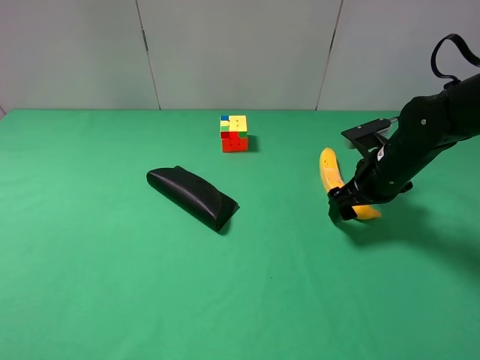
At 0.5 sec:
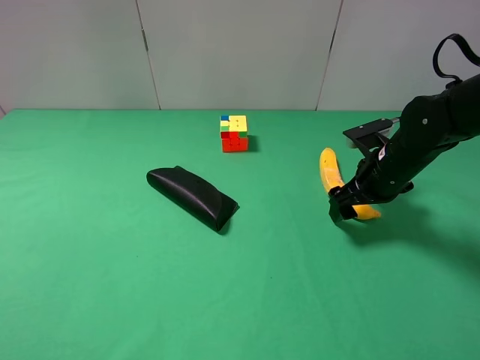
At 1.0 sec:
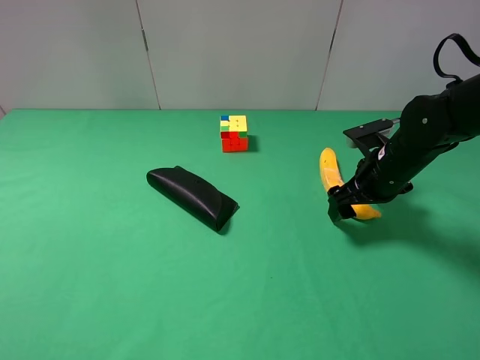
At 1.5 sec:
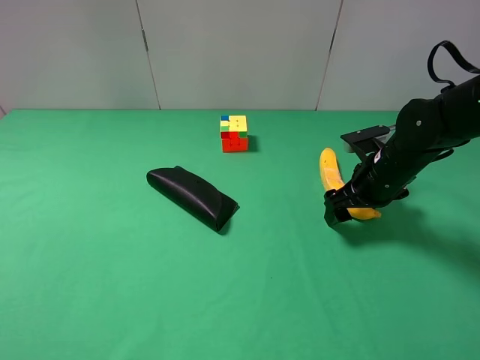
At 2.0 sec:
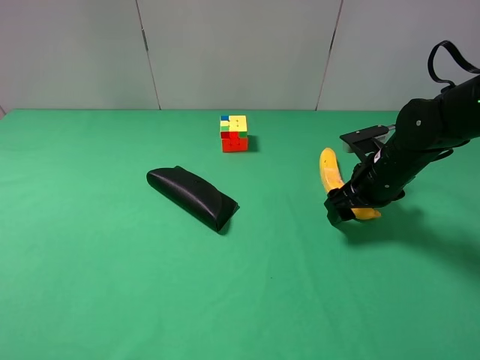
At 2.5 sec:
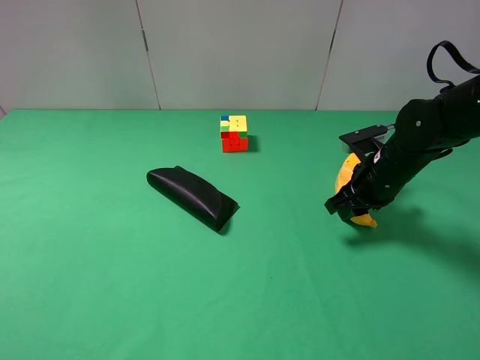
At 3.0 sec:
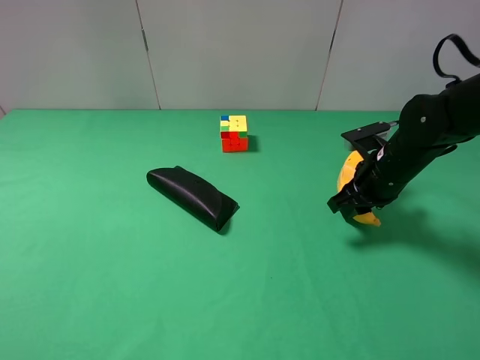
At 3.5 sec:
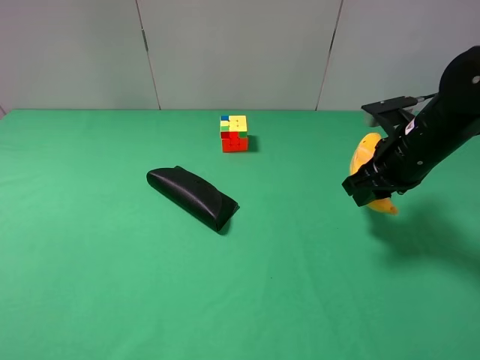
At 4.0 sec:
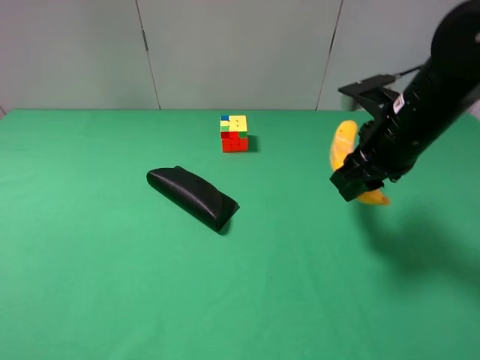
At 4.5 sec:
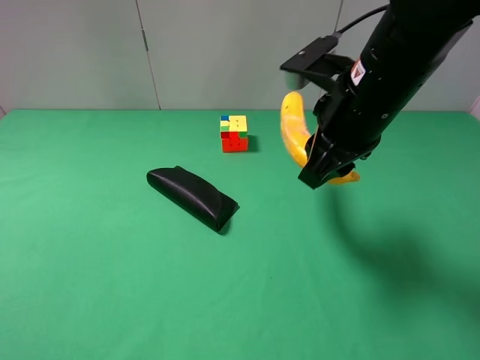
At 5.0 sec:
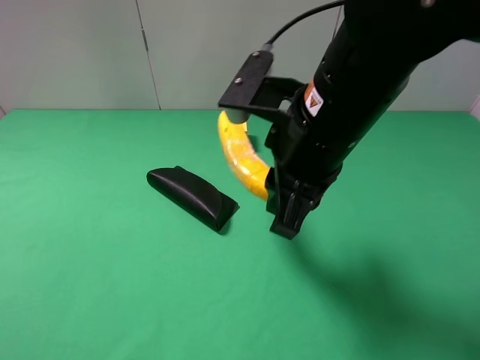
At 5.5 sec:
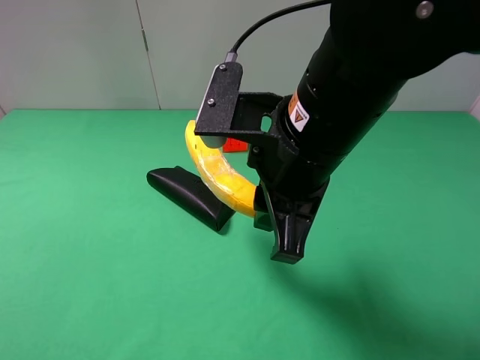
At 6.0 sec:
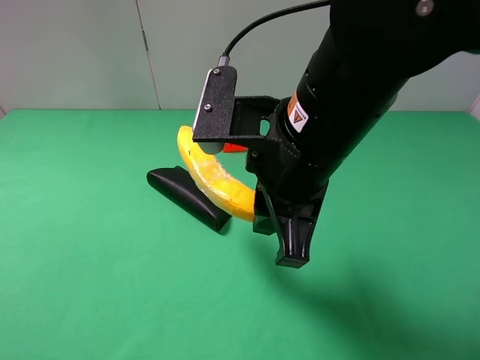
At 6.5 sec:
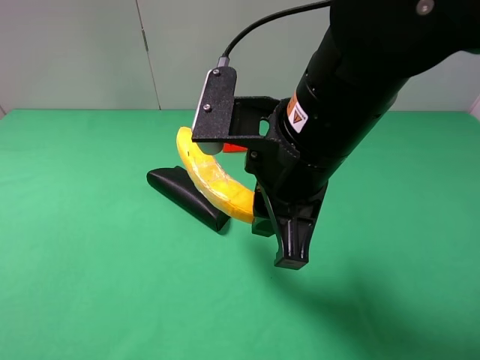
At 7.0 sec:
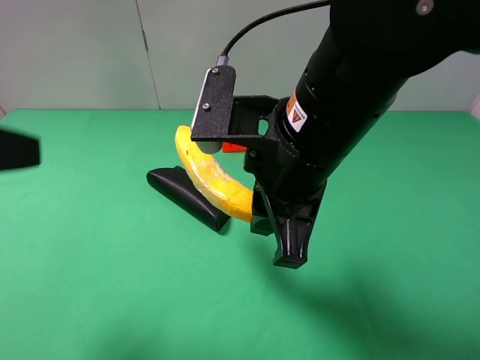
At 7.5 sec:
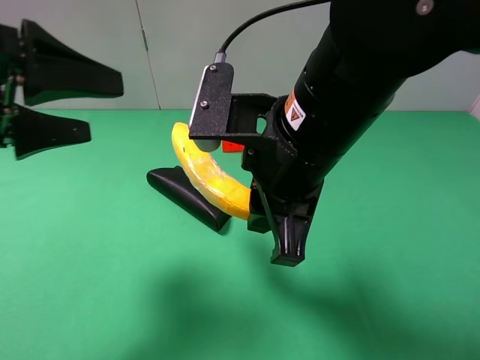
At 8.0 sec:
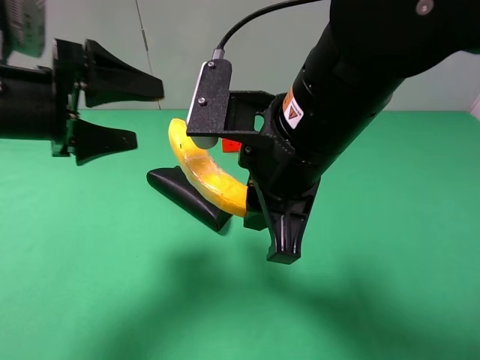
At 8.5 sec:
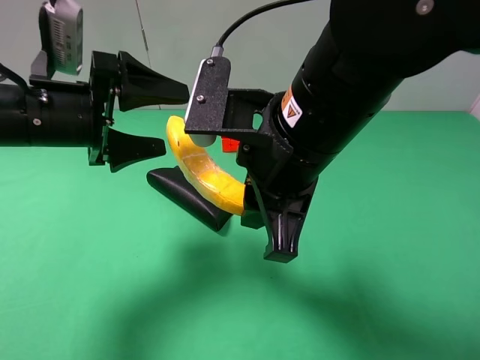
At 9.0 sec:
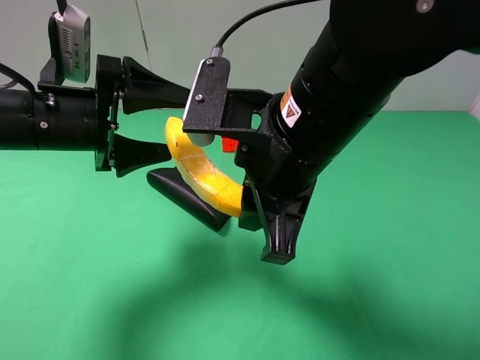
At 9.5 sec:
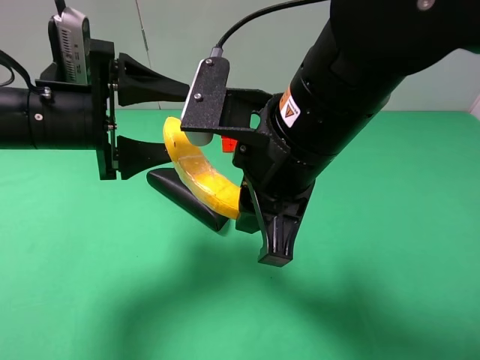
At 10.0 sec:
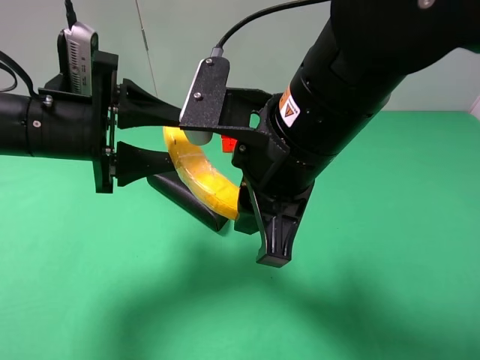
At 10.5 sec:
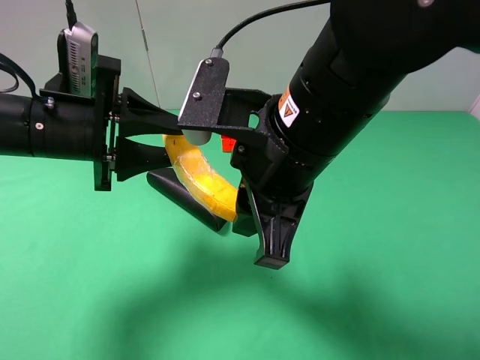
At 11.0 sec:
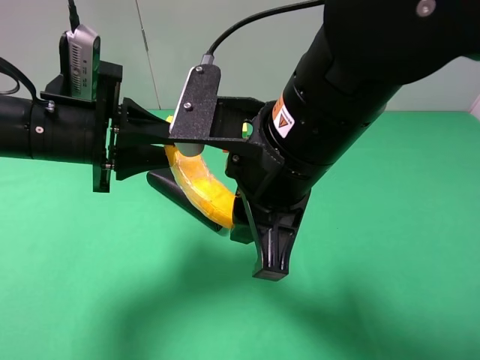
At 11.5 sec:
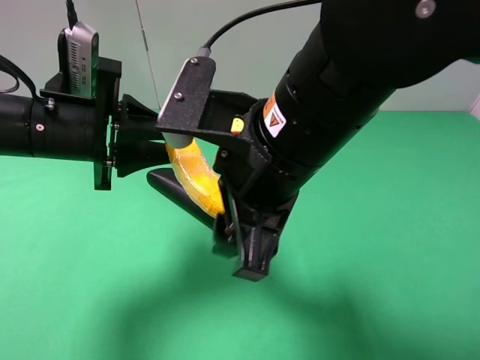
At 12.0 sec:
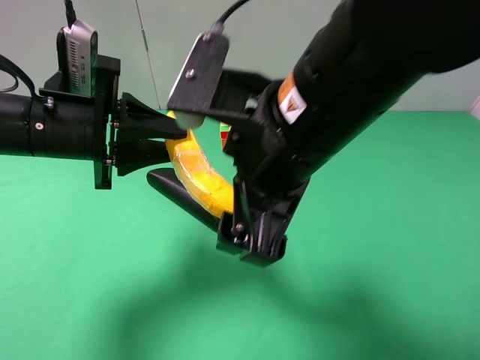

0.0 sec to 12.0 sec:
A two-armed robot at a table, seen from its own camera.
Task of the whole recording: use the right gripper to pick up the item and transfer it from the right gripper to the left gripper.
0.0 sec to 2.0 sec: The right gripper closes up.
2.0 sec to 4.0 sec: The right gripper travels upward by about 10 cm, and closes its fingers.
4.0 sec to 6.0 sec: The right gripper travels to the left and backward by some 15 cm.
6.0 sec to 8.0 sec: The left gripper heads forward and to the right, covering approximately 25 cm.
8.0 sec to 10.0 sec: The left gripper closes its fingers.
10.0 sec to 12.0 sec: The right gripper opens.

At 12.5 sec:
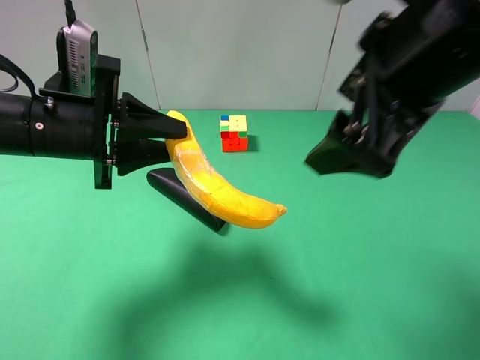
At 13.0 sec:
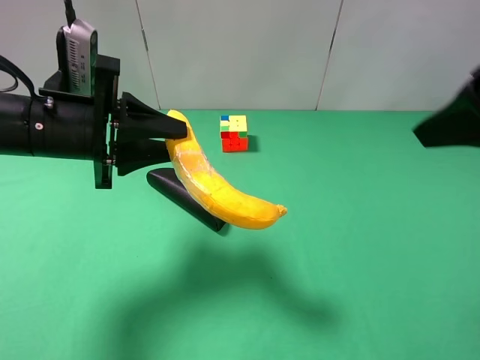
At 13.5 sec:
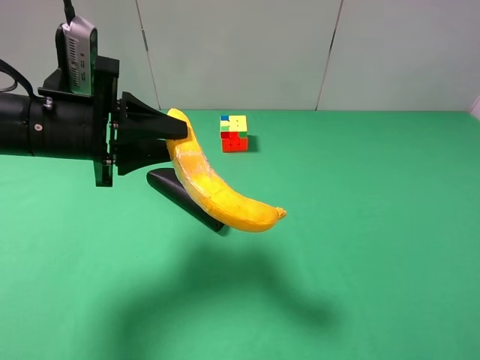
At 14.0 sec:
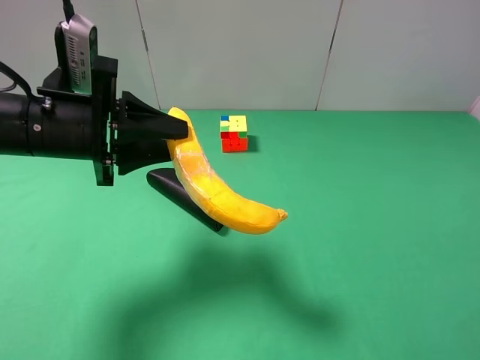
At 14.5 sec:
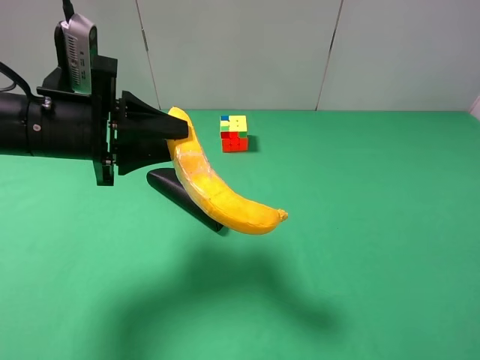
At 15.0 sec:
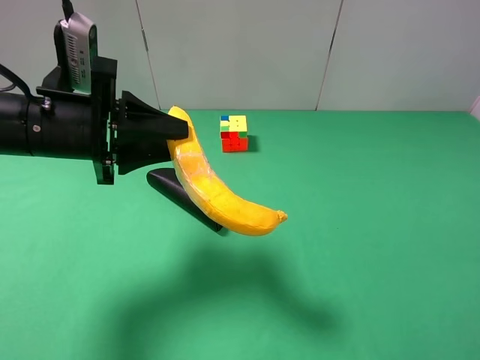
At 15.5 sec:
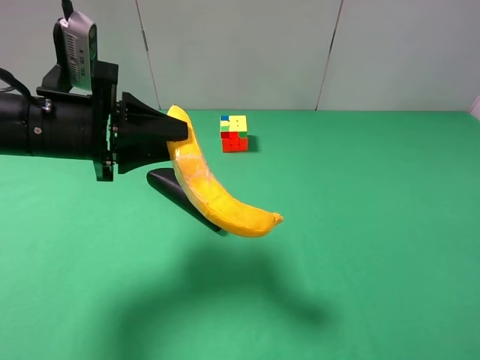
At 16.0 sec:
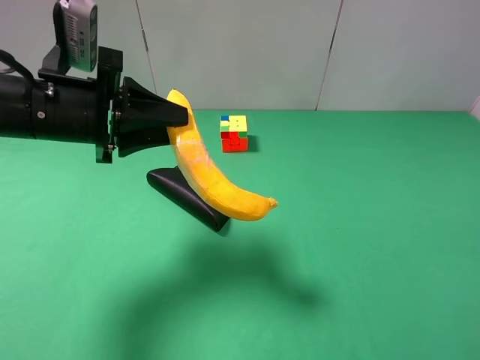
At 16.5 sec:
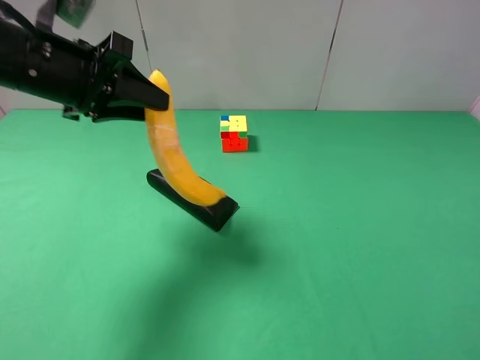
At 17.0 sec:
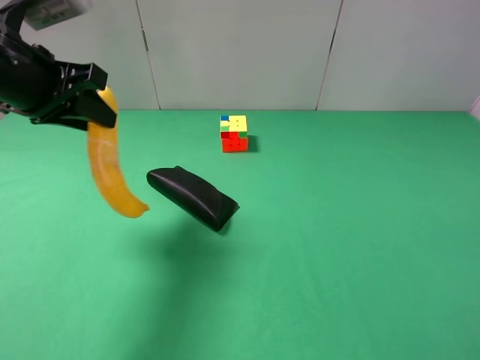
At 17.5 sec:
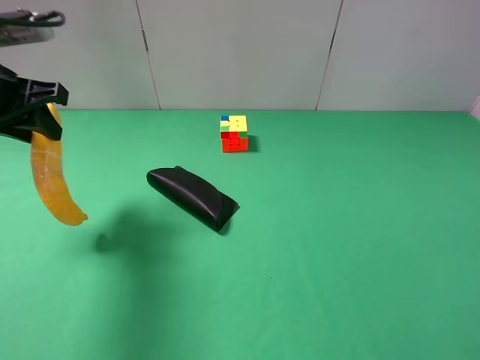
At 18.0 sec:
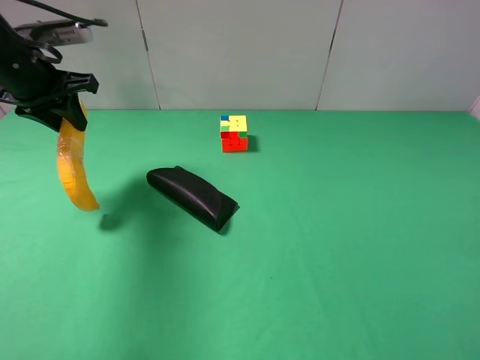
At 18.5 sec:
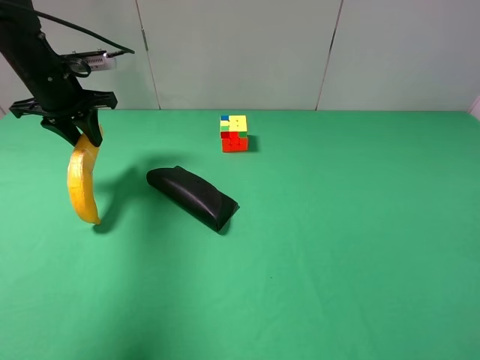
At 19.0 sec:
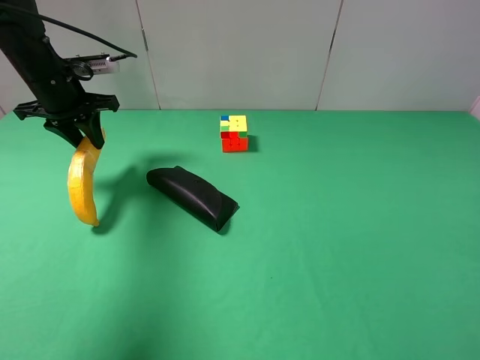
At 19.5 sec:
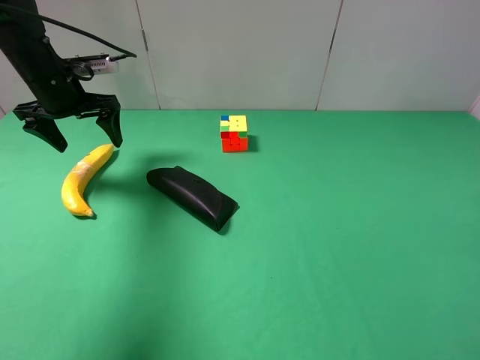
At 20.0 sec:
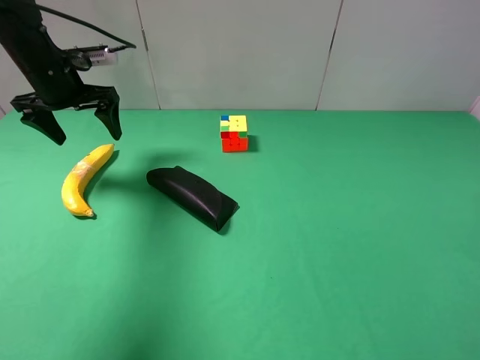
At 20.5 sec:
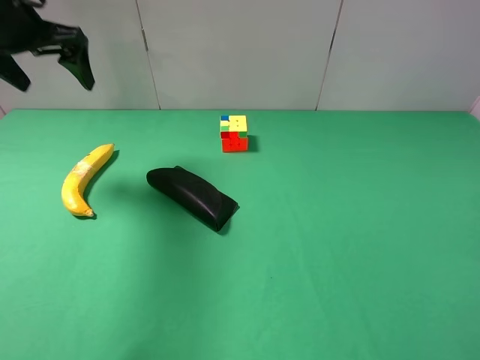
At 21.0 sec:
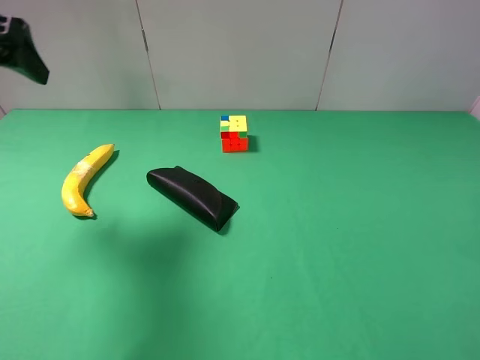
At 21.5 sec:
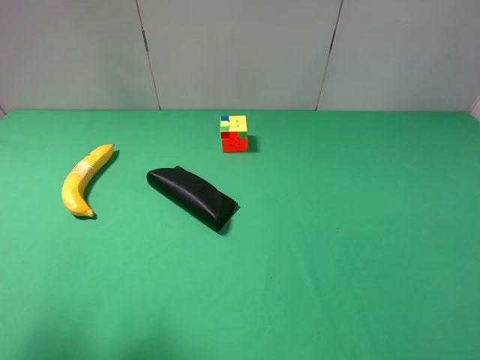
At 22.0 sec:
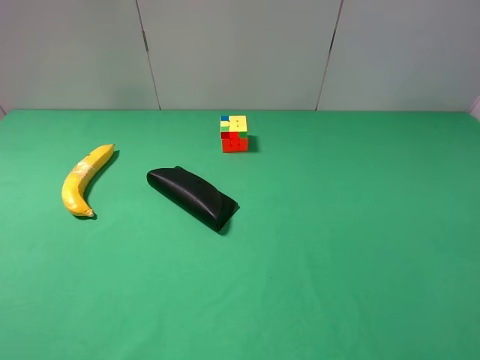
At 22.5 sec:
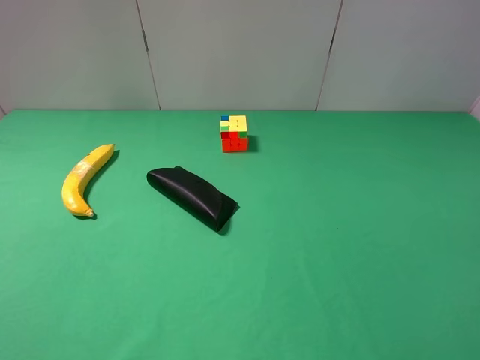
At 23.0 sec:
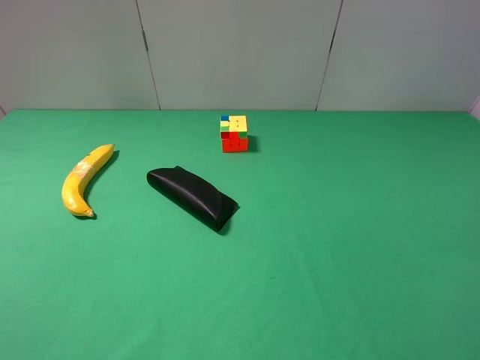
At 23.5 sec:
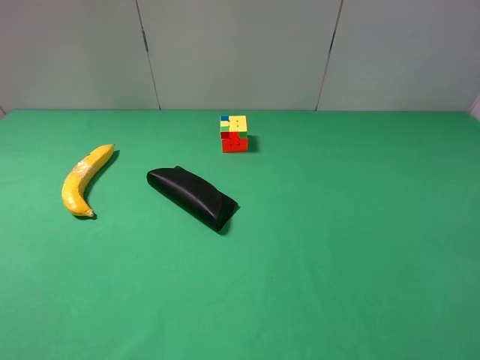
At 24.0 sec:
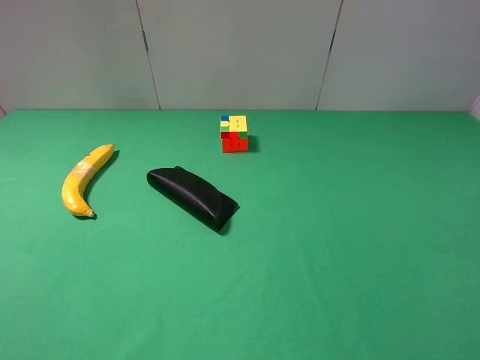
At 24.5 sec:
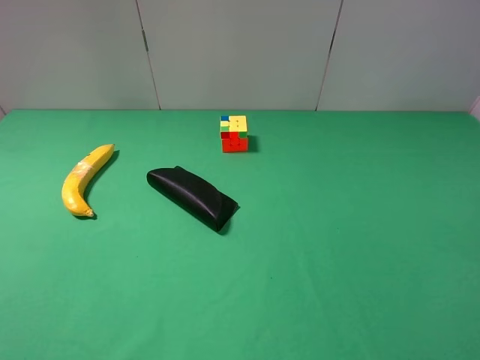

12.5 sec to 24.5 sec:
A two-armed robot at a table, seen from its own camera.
Task of the whole recording: use the right gripper to pick up the item and transfer it from the right gripper to the left gripper.
Step, 12.5 sec to 20.0 sec: The left gripper places banana on the left side of the table.
12.5 sec to 14.5 sec: The right gripper travels backward, to the right and downward by some 25 cm.
14.5 sec to 16.5 sec: The left gripper heads upward, covering approximately 5 cm.
16.5 sec to 18.5 sec: The left gripper heads forward, to the left and downward, covering roughly 15 cm.
18.5 sec to 20.5 sec: The left gripper moves upward, roughly 10 cm, and opens.
20.5 sec to 22.5 sec: The left gripper is displaced backward by roughly 40 cm.
